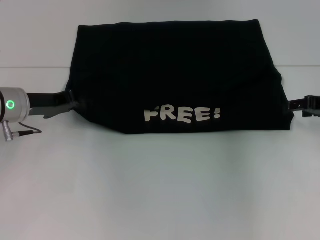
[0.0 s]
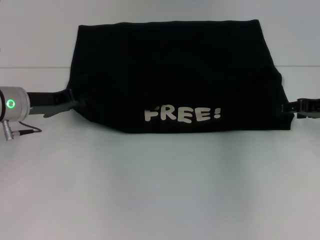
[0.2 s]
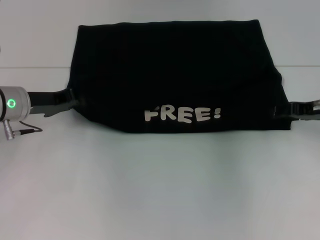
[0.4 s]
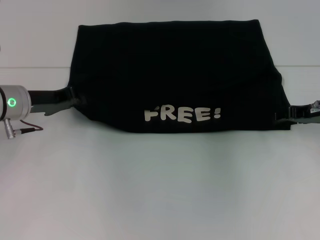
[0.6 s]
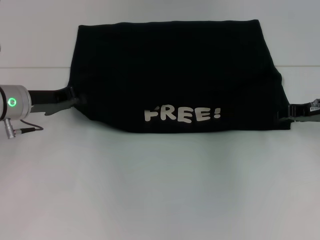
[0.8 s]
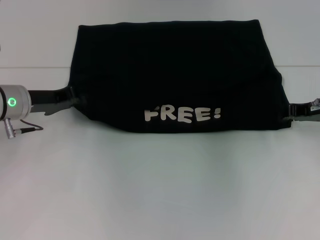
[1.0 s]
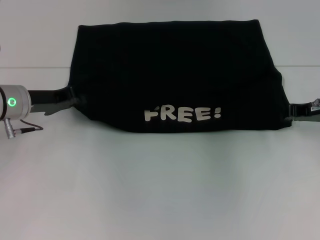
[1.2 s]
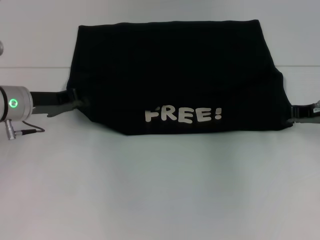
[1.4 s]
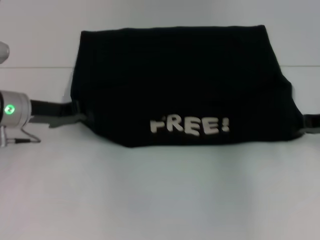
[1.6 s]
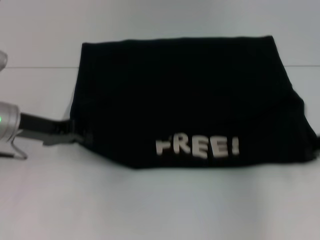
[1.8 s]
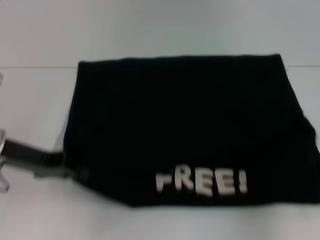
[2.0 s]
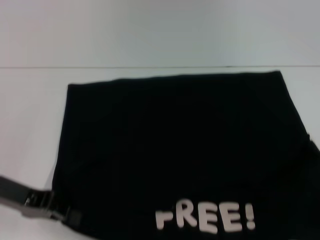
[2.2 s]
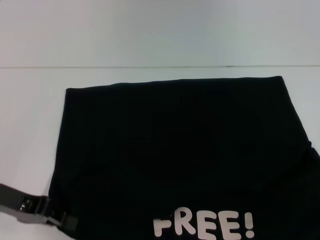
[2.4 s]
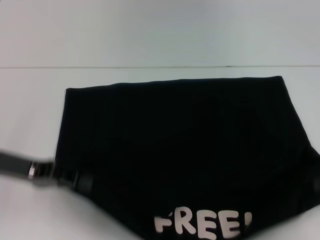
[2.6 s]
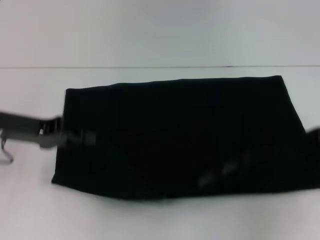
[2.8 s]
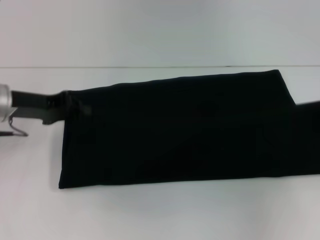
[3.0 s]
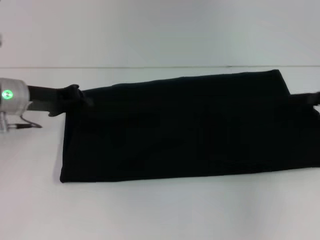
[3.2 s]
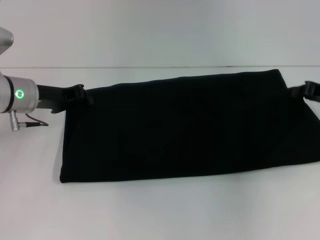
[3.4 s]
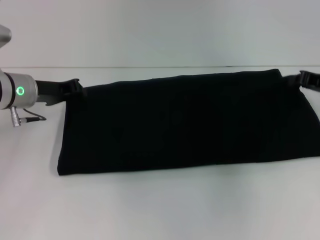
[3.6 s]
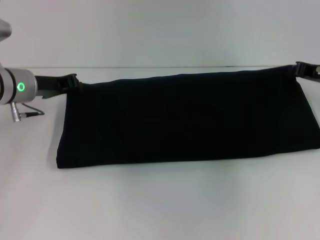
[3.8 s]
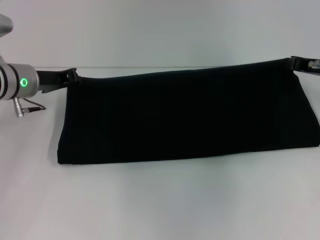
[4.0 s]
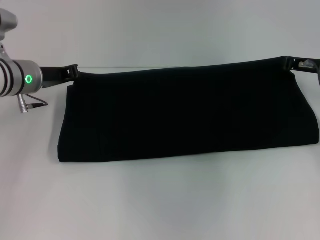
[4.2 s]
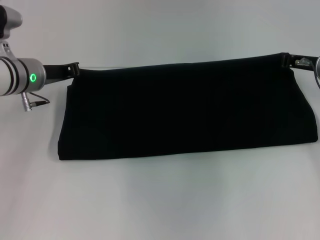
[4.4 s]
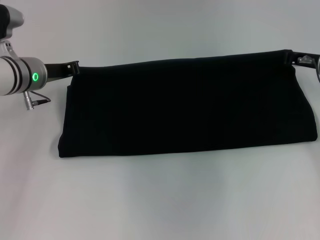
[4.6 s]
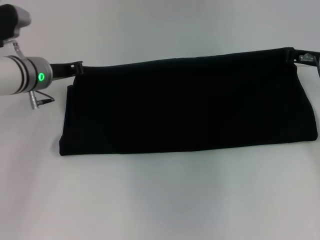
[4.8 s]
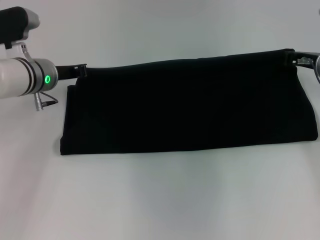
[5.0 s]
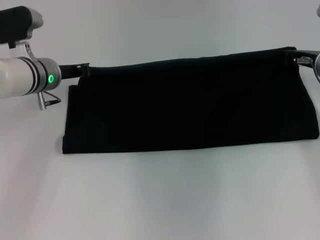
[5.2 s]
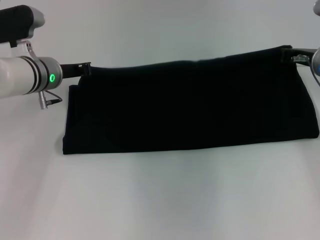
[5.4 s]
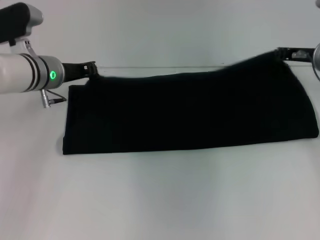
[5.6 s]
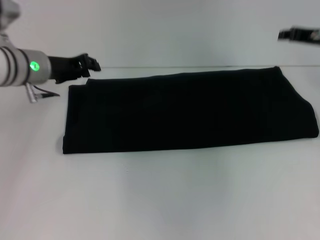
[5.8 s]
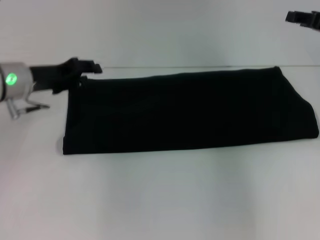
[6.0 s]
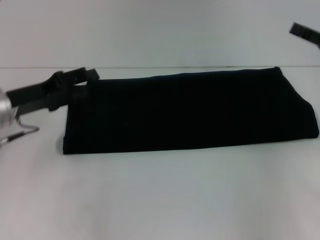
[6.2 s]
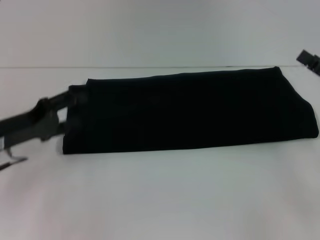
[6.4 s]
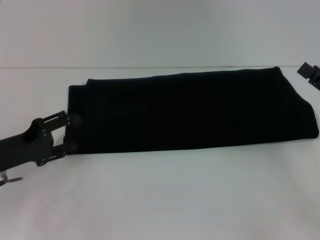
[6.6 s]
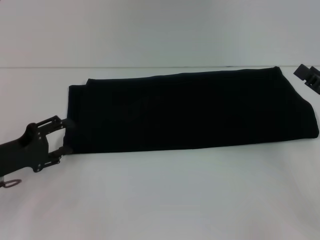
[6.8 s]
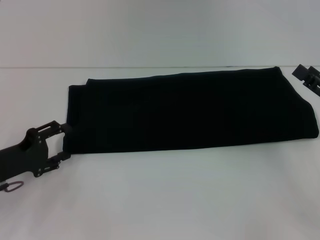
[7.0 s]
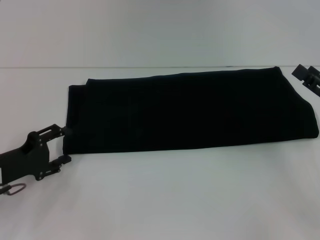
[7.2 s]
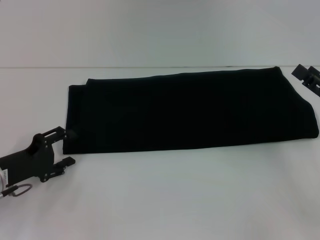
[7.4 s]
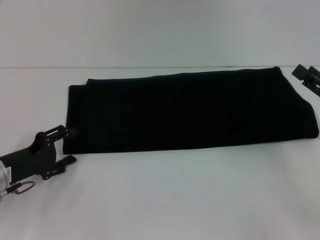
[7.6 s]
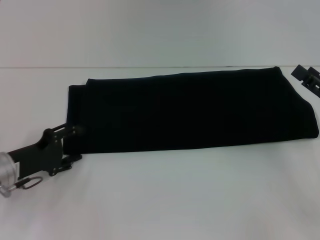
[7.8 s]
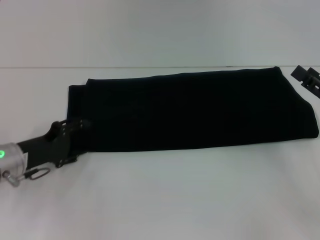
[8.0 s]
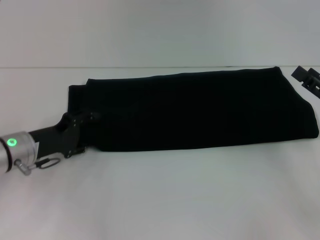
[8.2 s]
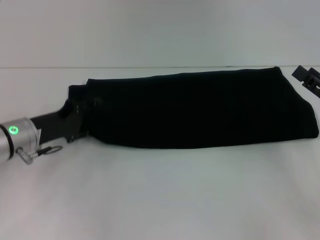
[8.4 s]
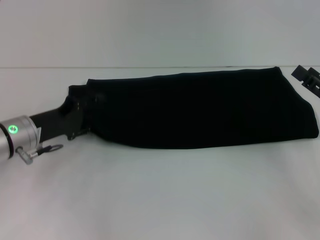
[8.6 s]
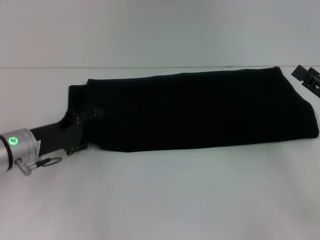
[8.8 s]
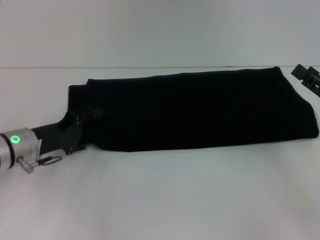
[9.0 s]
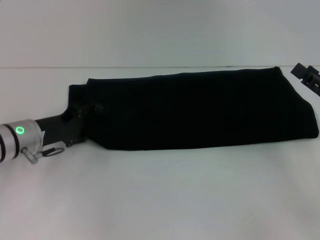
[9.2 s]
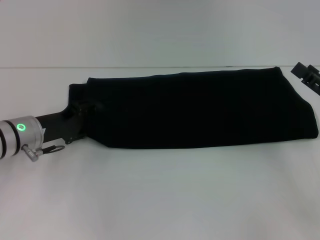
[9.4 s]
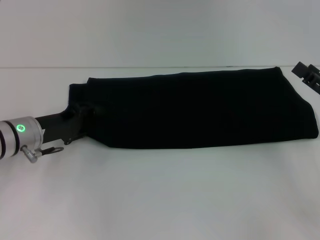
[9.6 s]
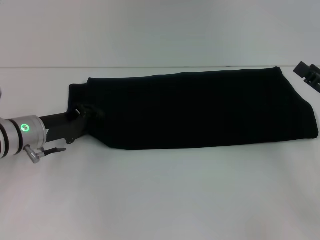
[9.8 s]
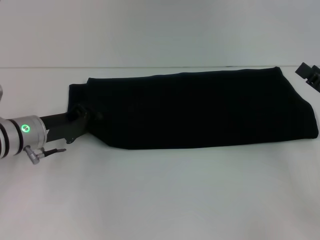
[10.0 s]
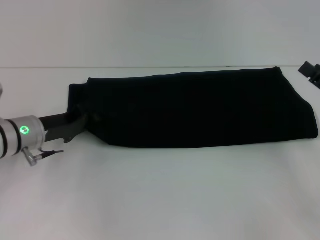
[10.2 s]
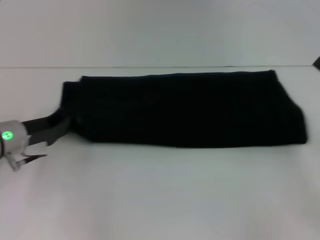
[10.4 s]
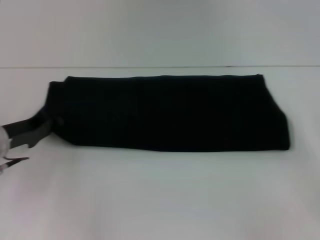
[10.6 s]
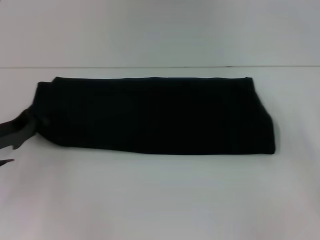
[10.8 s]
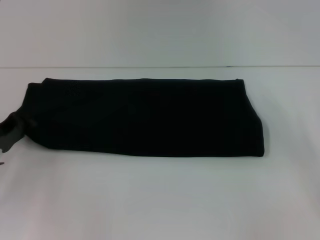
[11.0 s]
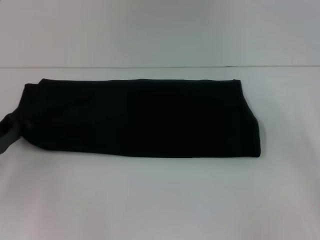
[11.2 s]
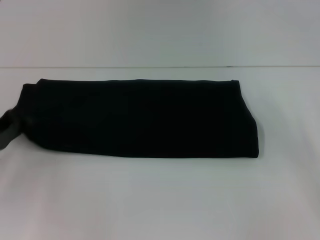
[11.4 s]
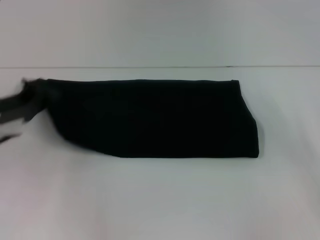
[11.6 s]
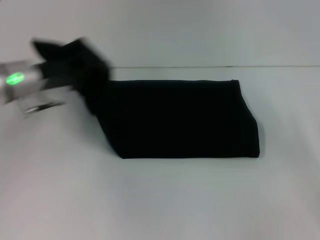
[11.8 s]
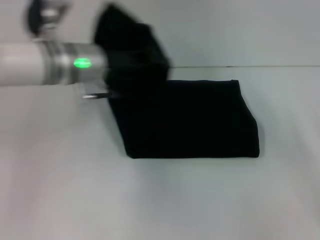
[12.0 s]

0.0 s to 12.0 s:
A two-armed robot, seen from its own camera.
Step, 0.0 to 2.4 s: Pull the clothes with your left hand.
Step, 0.0 to 2.4 s: Pull the clothes with your right hand.
Step, 2.6 to 5.8 s: Fold the clothes with your right hand.
0.0 to 1.6 s: The right gripper closes.
1.6 to 3.0 s: The right gripper moves to the right, approximately 5 cm, and goes backward and returns, some 10 cm each way. The left gripper reaches some 10 cm backward, then returns.
3.0 to 4.4 s: The right gripper moves to the left and forward, some 15 cm. The left gripper is displaced forward by some 5 cm.
4.4 to 6.0 s: The left gripper opens its fingers; the right gripper travels upward by approximately 5 cm.
6.0 to 7.6 s: Both grippers move backward and downward, about 15 cm. The right gripper opens its fingers, while the left gripper opens its fingers.
7.6 to 9.0 s: The left gripper goes roughly 5 cm forward.
9.0 to 10.4 s: The left gripper closes up.
10.4 to 12.0 s: The left gripper is displaced to the right, upward and forward by roughly 15 cm.

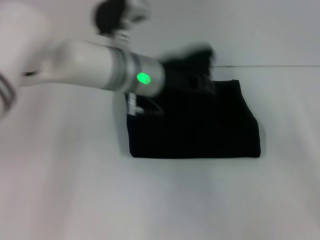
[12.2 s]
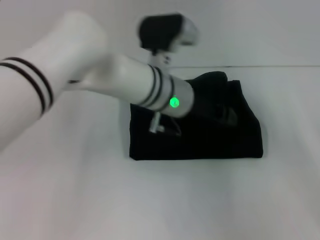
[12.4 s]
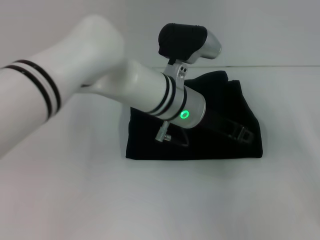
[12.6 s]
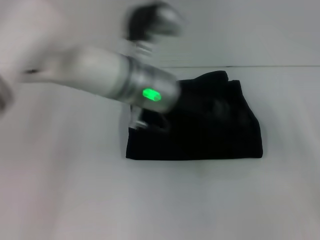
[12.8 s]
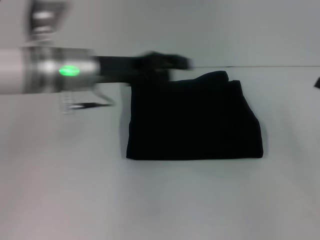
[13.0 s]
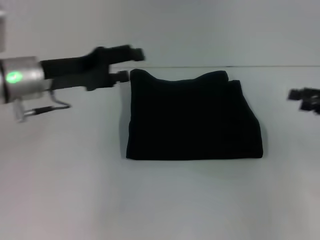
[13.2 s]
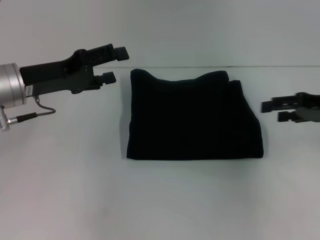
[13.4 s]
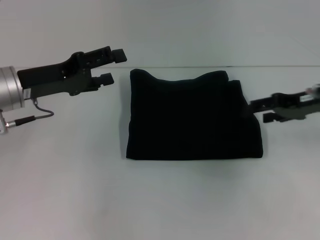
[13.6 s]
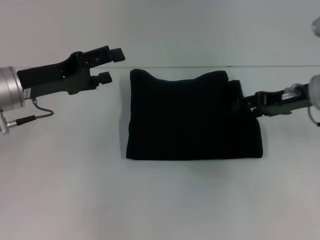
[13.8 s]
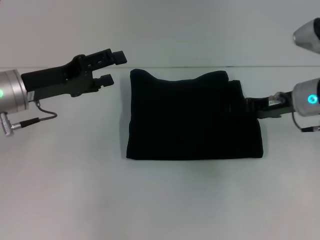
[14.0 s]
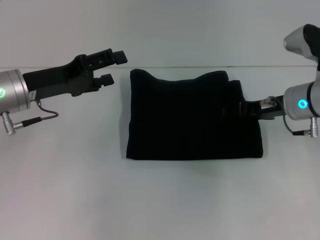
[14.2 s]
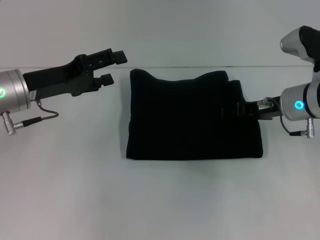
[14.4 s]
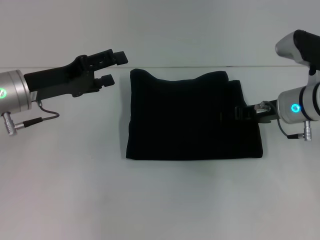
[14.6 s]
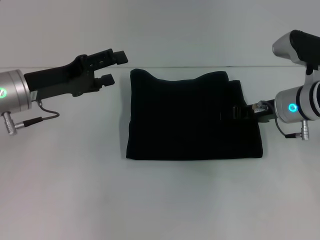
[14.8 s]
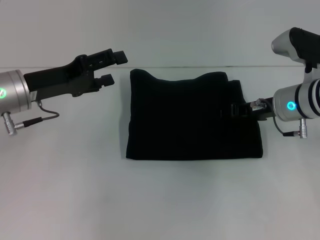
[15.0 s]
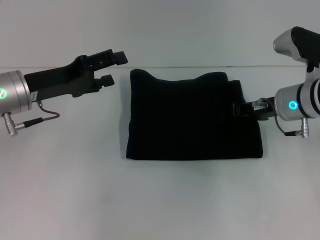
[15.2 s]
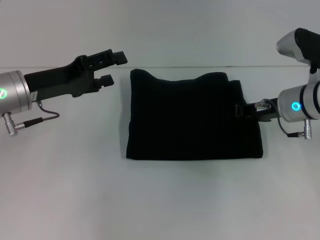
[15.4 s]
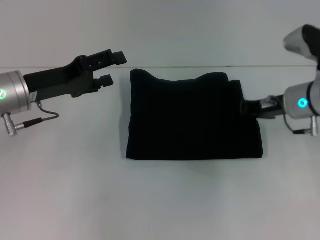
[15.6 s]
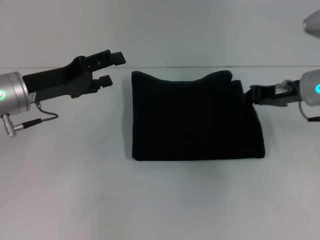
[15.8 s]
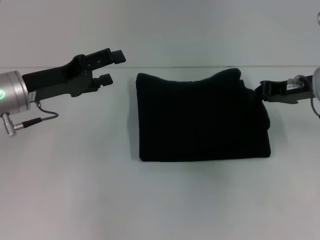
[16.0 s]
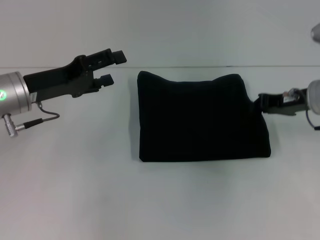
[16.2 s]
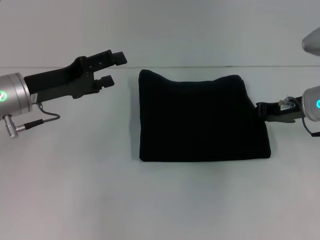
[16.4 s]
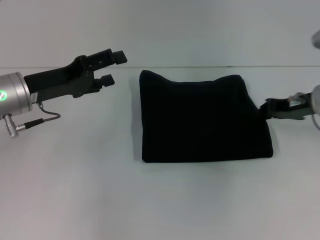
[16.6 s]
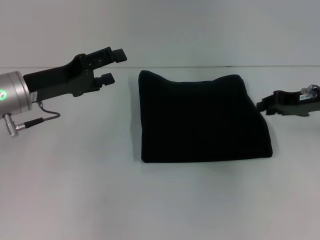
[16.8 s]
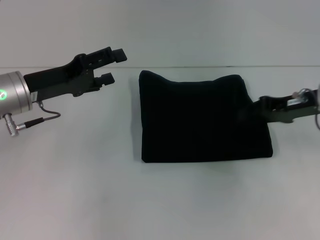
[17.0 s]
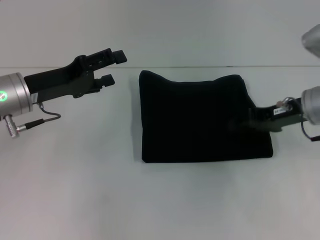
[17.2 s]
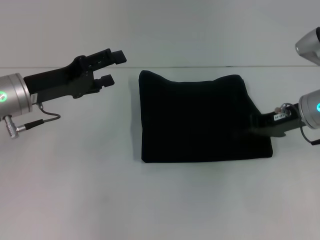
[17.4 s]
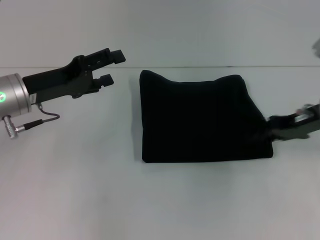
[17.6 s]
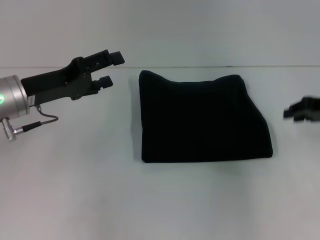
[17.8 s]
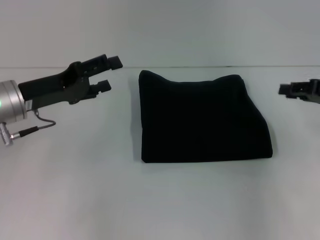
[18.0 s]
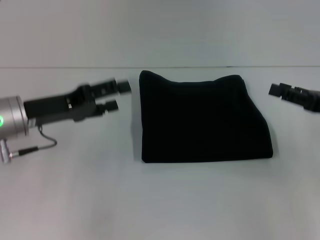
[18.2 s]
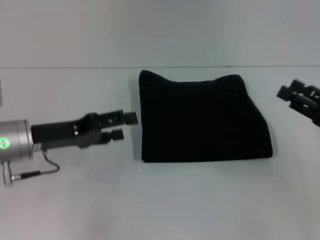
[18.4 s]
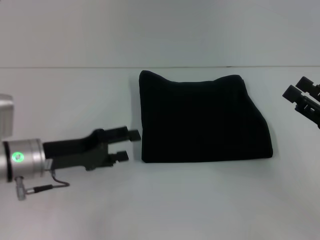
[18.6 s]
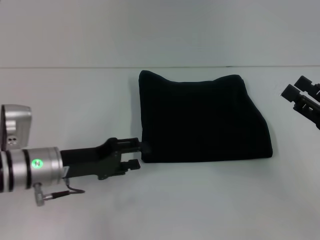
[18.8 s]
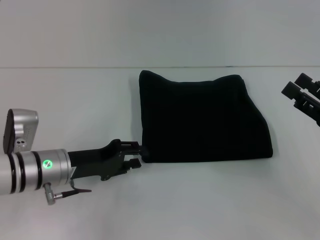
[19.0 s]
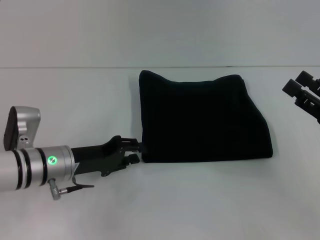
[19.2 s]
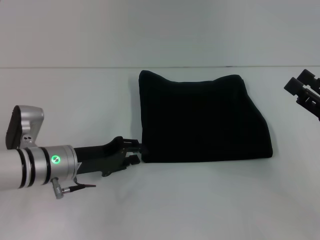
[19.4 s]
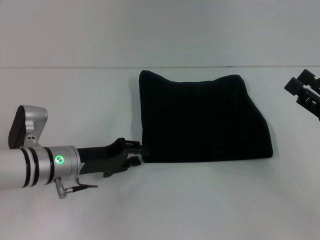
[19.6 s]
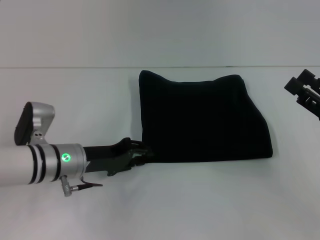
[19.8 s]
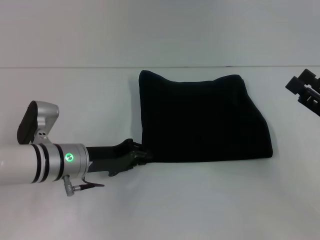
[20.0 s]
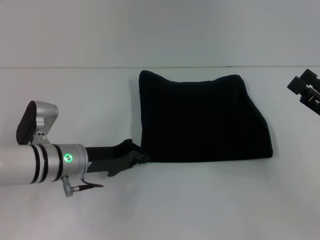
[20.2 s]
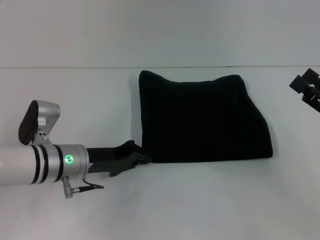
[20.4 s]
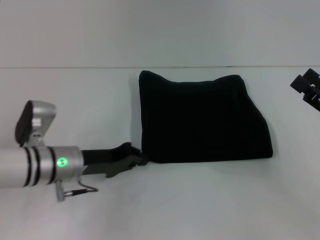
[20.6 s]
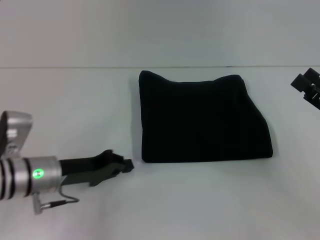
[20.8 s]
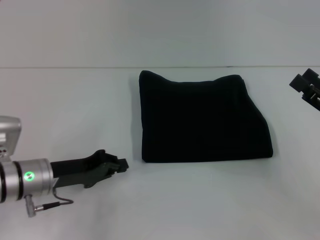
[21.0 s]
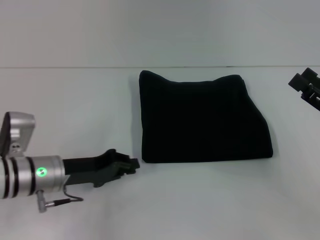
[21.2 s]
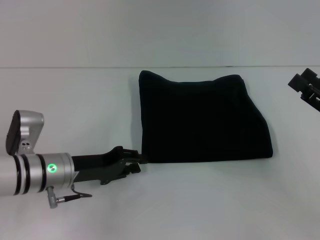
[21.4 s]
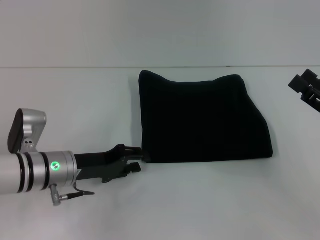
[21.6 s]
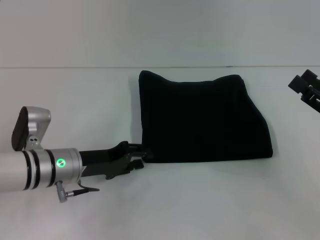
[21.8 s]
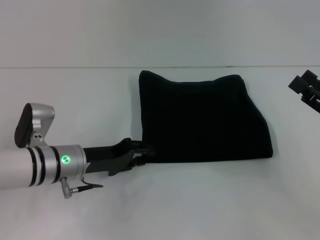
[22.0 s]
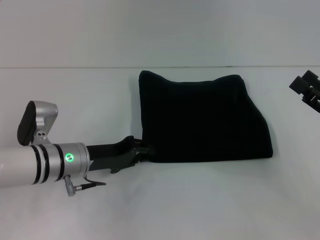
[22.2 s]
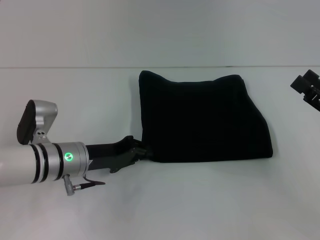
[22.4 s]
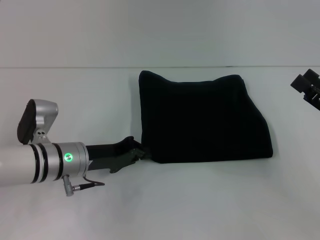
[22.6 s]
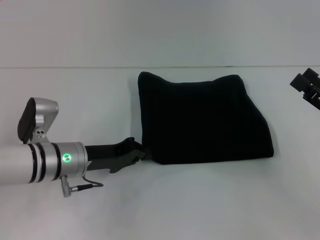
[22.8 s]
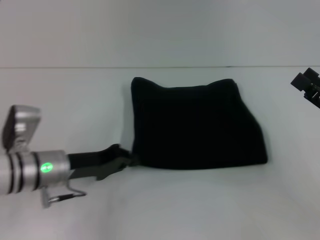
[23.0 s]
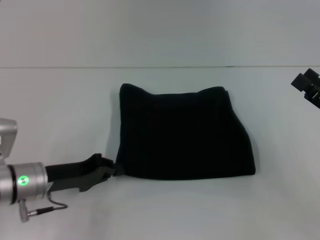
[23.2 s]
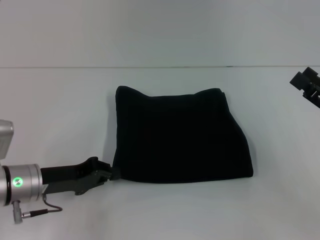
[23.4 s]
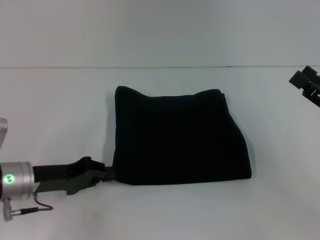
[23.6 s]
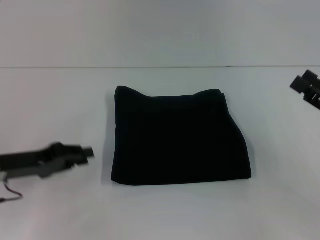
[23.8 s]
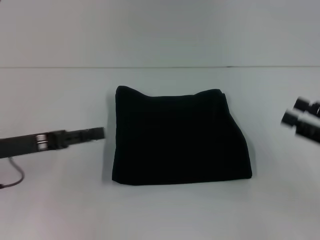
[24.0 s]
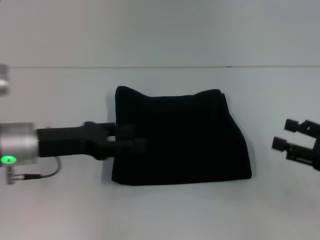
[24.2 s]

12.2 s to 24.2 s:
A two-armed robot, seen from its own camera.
12.2 to 13.8 s: The right gripper moves forward, to the left and upward, approximately 15 cm. The left gripper is displaced to the left by approximately 20 cm, and opens its fingers.
13.8 to 15.2 s: The right gripper changes place by about 5 cm, and closes up.
15.2 to 16.6 s: The right gripper heads to the right, covering roughly 5 cm, and closes up.
16.6 to 18.2 s: The right gripper shifts approximately 10 cm backward and to the right, and opens.
18.2 to 19.8 s: The left gripper moves downward and to the right, about 10 cm, and closes; the right gripper travels backward by roughly 5 cm, and opens up.
19.8 to 21.2 s: There are only small adjustments of the grippers.
21.2 to 22.6 s: The left gripper opens, then closes again.
22.6 to 24.2 s: The left gripper travels upward and to the left by about 10 cm.
